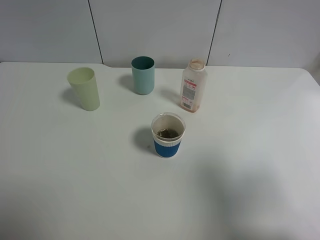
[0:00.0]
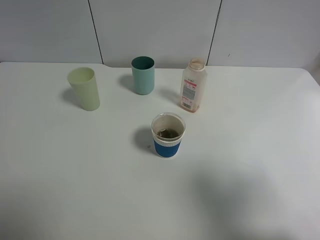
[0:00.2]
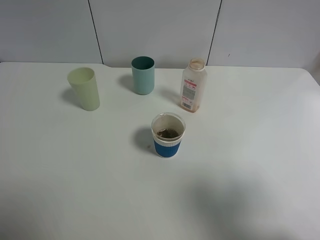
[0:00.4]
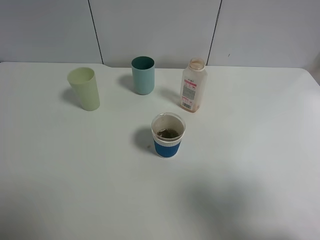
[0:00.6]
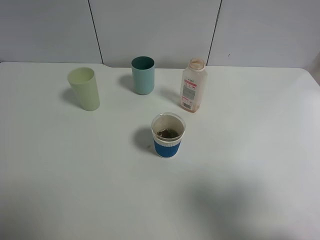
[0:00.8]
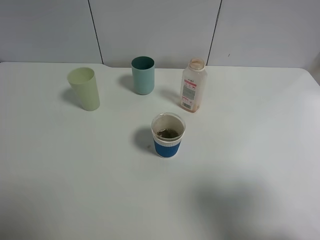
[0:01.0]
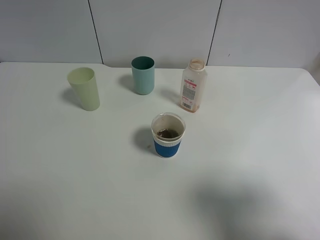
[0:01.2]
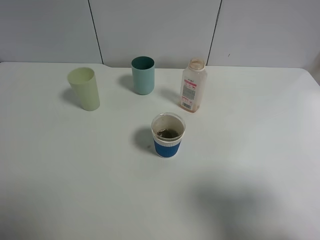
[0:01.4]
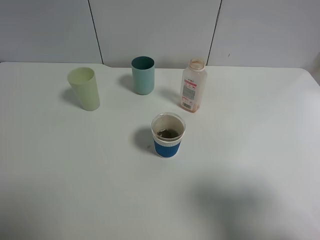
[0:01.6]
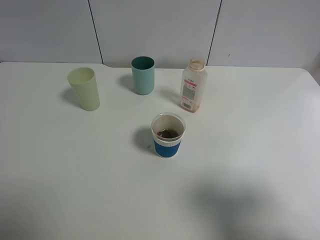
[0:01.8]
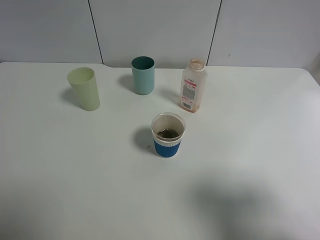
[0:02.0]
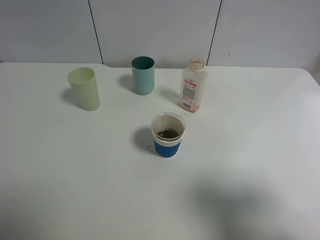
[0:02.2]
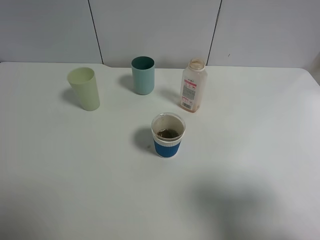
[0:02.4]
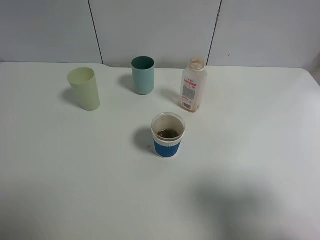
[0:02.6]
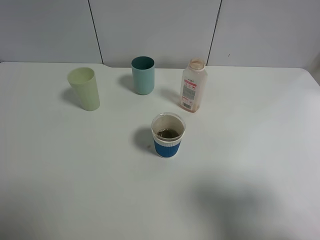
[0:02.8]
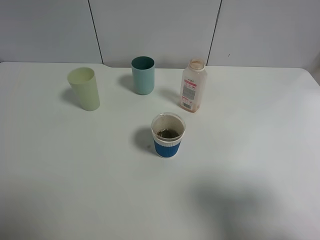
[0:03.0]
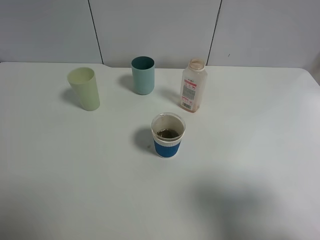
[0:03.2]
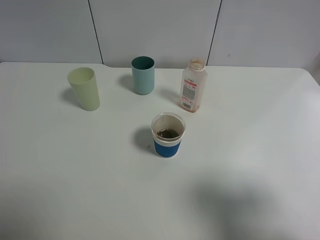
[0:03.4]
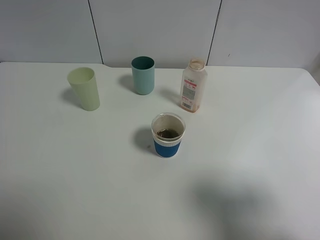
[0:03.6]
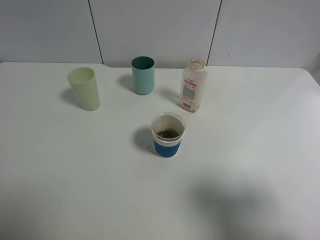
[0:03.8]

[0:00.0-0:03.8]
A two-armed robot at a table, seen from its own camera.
Task of the whole recording: use a gripper to hold the bottle of the drink and pour it into a random cup.
0:00.0 to 0:01.2: The right gripper shifts by approximately 5 cm.
0:01.2 to 0:03.8: The two grippers keep their place.
